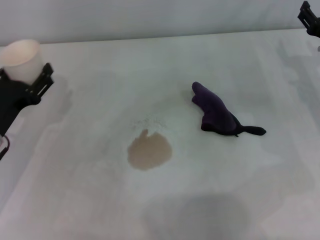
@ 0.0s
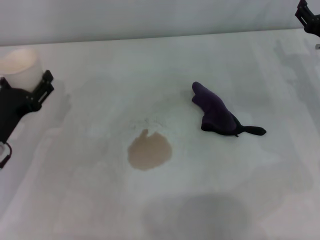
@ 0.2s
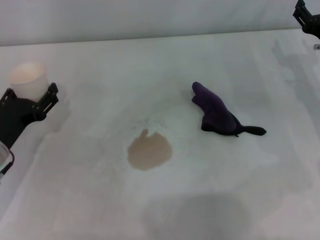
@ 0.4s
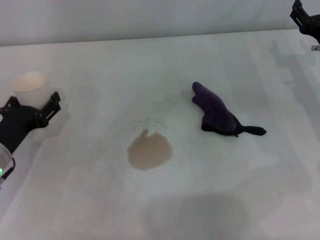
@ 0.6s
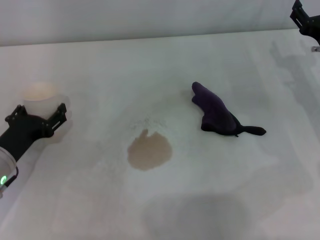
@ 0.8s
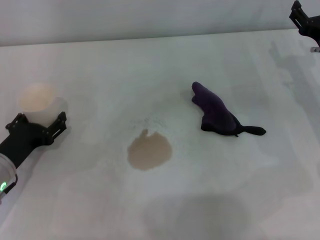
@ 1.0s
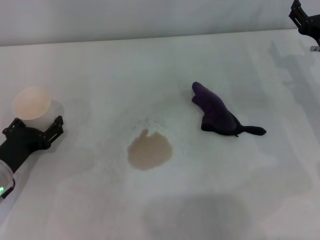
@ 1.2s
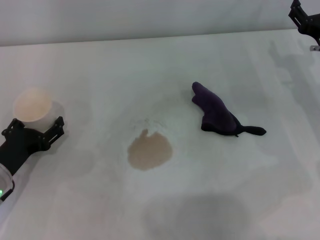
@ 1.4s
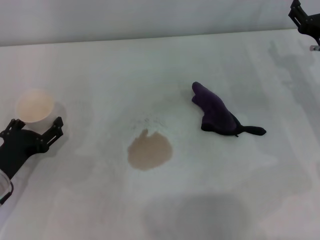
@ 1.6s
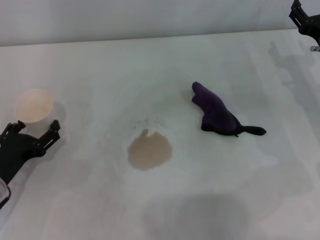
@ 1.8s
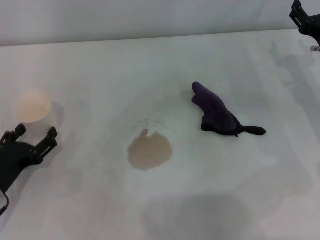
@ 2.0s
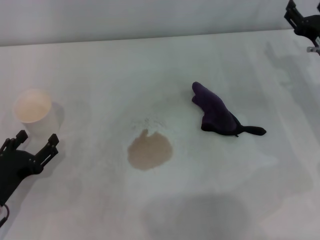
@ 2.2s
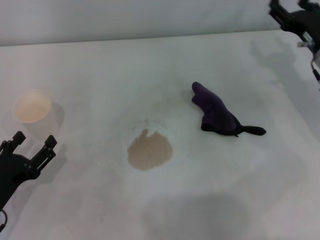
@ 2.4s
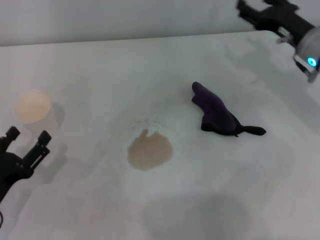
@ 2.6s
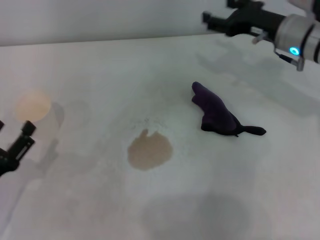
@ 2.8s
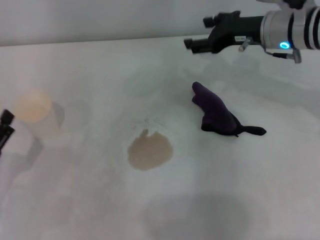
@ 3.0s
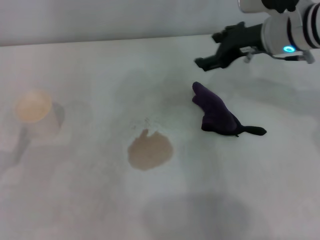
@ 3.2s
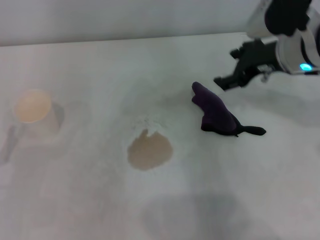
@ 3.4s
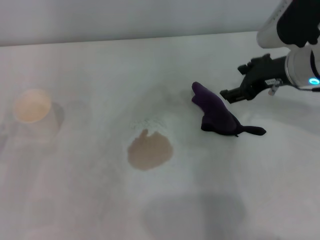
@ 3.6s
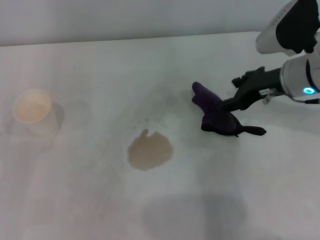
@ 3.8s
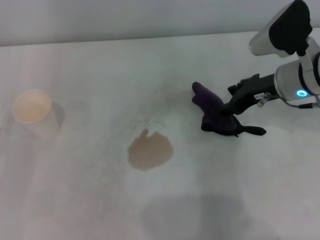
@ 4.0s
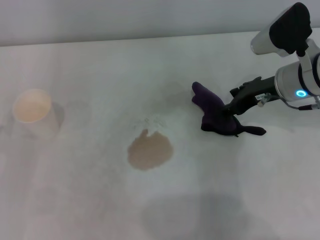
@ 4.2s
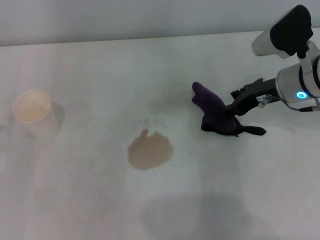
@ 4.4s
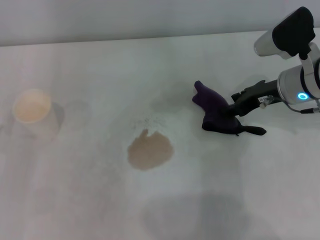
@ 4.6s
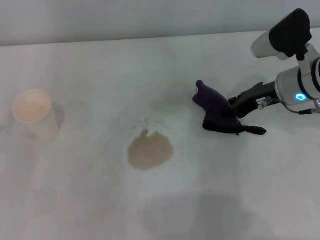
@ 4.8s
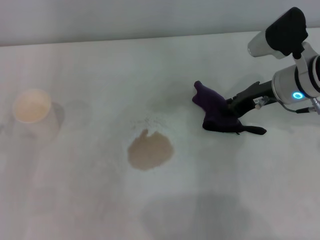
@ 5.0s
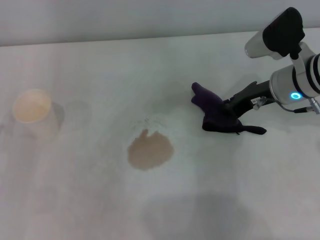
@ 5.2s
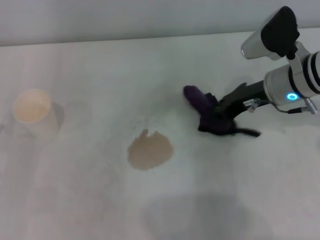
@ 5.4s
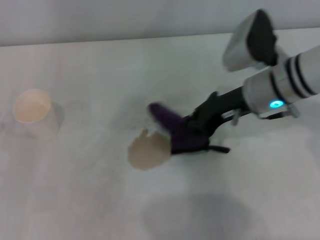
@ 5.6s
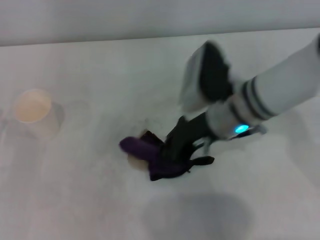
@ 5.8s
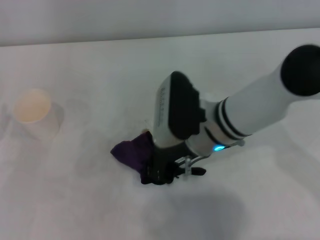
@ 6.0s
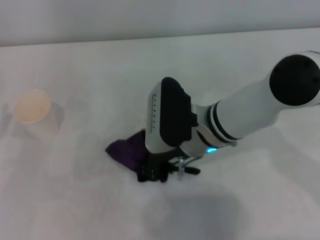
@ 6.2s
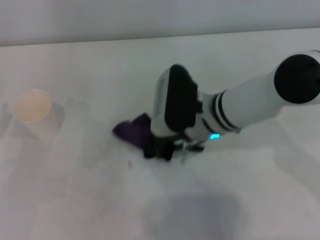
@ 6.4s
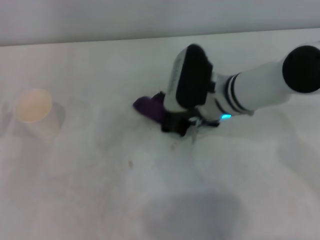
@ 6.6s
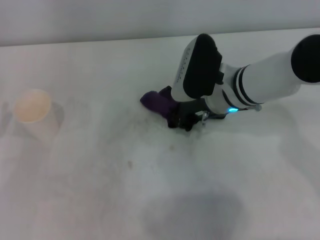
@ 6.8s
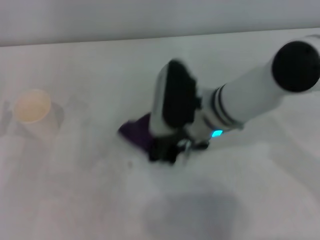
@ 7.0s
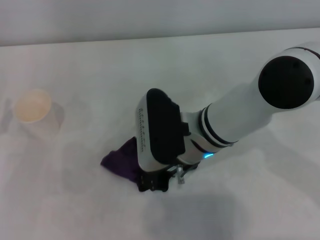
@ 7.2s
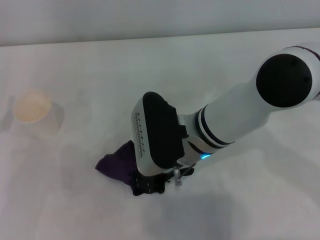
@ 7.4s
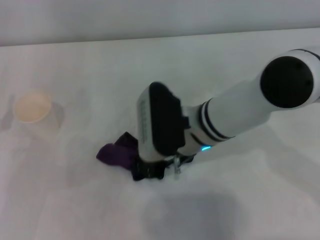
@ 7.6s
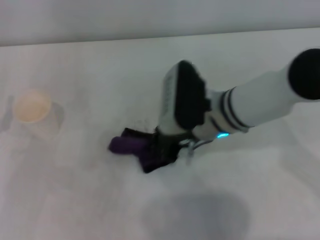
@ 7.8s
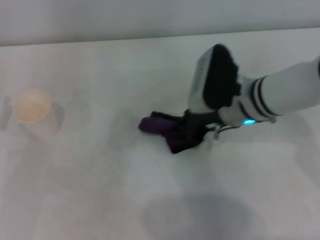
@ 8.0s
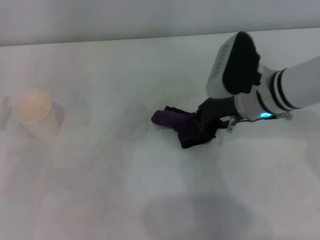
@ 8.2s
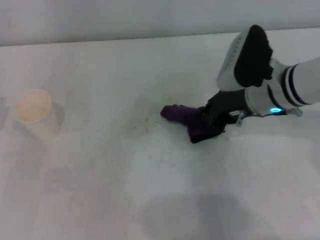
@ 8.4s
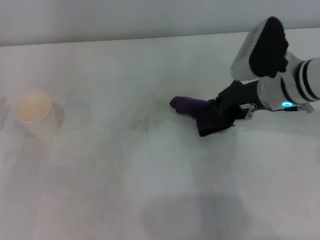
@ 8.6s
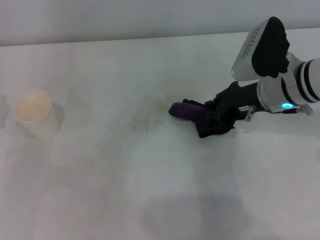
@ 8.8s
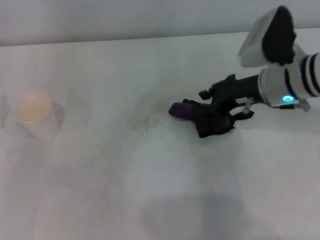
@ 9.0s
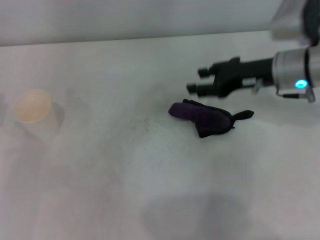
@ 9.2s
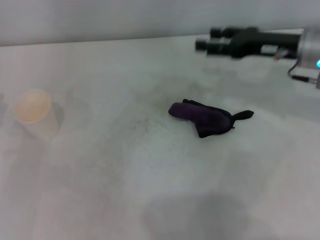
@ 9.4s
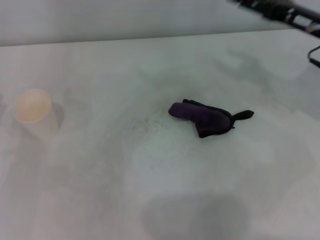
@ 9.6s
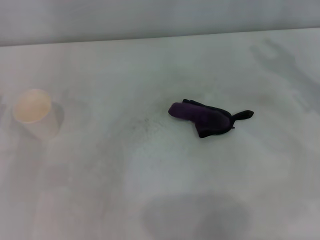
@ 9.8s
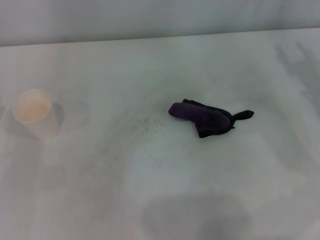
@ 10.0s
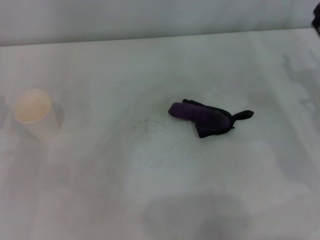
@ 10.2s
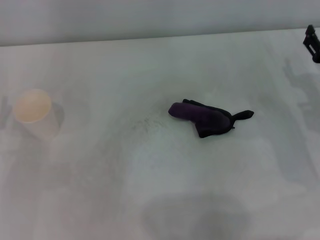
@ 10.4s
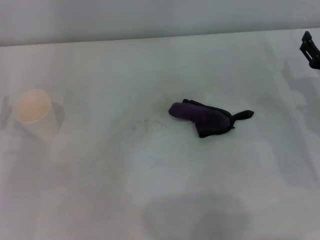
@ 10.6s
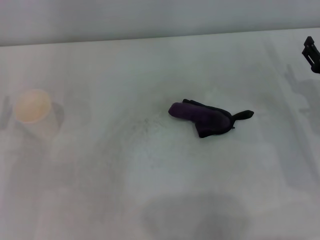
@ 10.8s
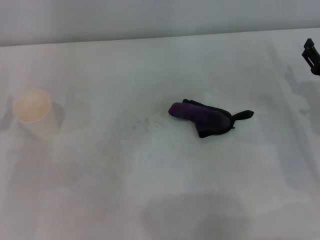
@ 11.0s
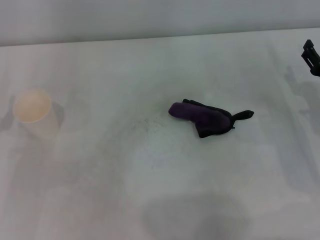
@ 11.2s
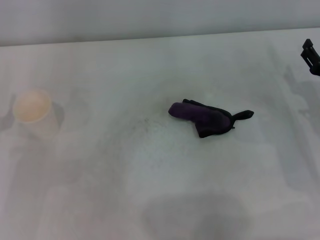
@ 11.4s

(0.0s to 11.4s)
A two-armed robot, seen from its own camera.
Step, 1.8s - 5.2s: Grasp the rag with the right gripper.
Step, 5.4s - 8.0s: Wipe the stains off the table with the right gripper.
Step, 8.2s - 8.8s: Place the rag on the table with the right gripper.
0.0s - 1.4s: The left gripper moves about 5 cm.
1.4s - 2.8s: The right gripper travels to the left and upward by some 10 cm; the left gripper travels backward by some 10 cm.
2.8s - 4.2s: The left gripper moves some 5 cm.
4.2s - 5.6s: The right gripper is displaced to the left by approximately 5 cm, and closes.
5.6s - 7.2s: The right gripper moves left and right over roughly 10 cm, changing direction 2 times.
7.2s - 8.6s: The right gripper heads to the right, covering roughly 15 cm.
8.6s - 10.0s: The right gripper goes approximately 15 cm to the right, and opens its fingers.
10.0s - 11.4s: The right gripper moves downward, roughly 5 cm.

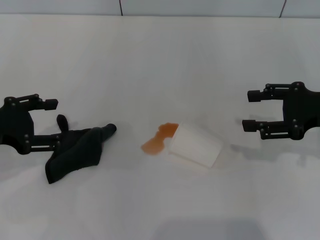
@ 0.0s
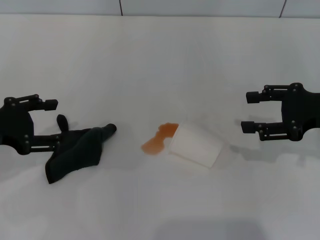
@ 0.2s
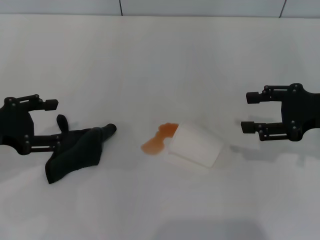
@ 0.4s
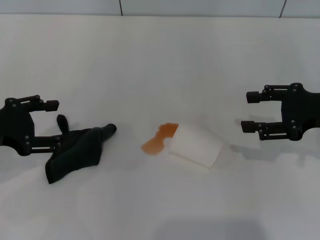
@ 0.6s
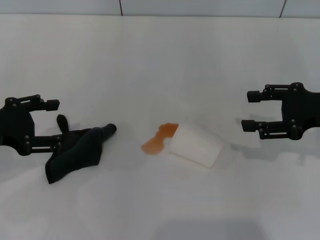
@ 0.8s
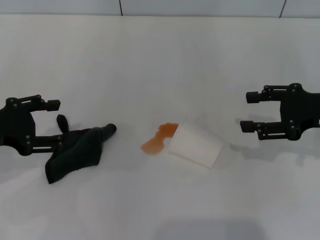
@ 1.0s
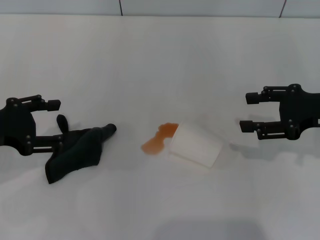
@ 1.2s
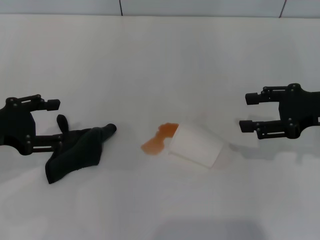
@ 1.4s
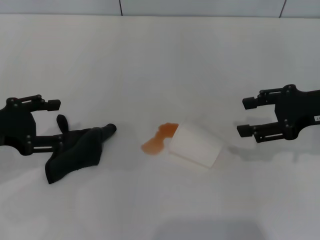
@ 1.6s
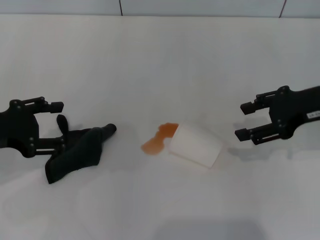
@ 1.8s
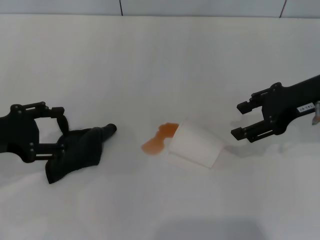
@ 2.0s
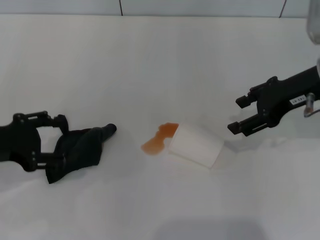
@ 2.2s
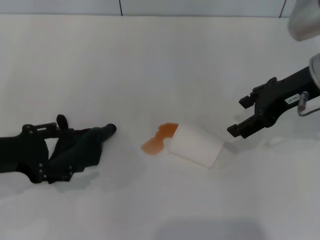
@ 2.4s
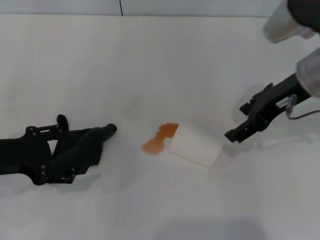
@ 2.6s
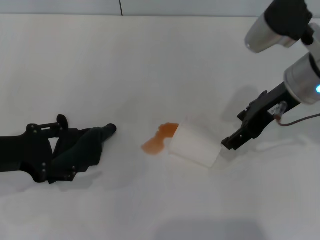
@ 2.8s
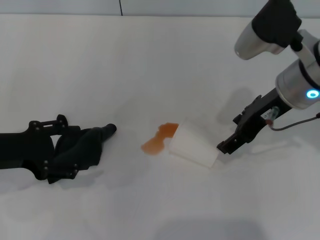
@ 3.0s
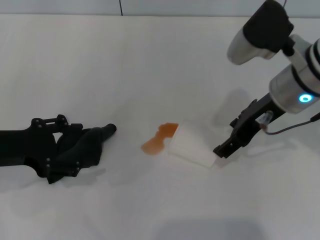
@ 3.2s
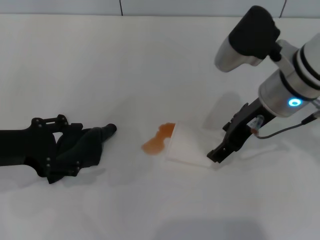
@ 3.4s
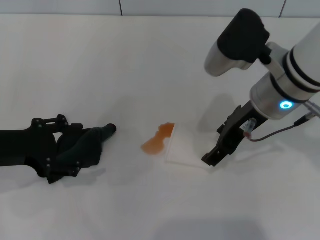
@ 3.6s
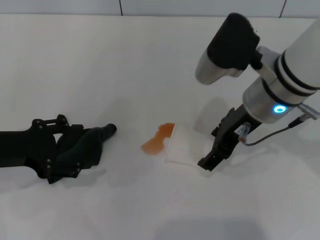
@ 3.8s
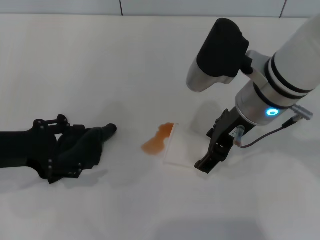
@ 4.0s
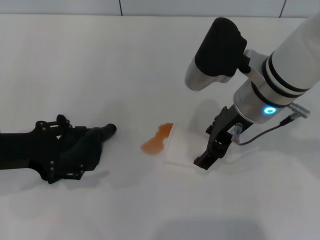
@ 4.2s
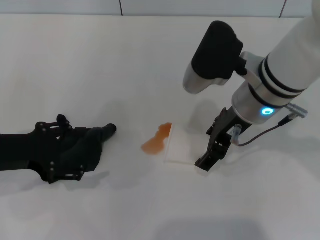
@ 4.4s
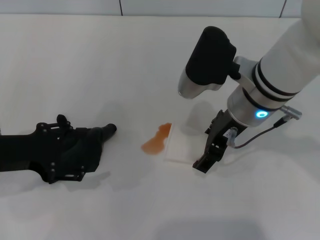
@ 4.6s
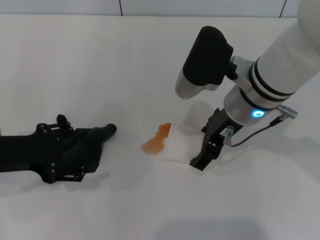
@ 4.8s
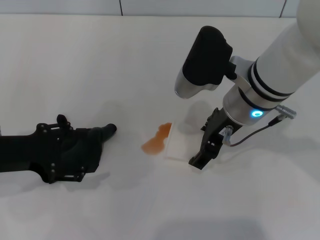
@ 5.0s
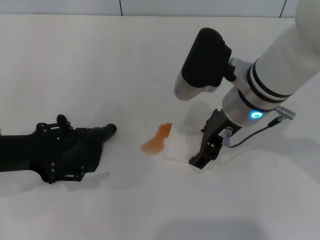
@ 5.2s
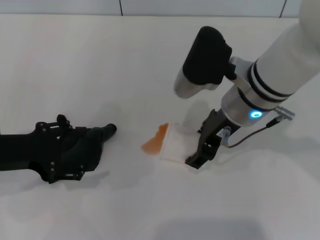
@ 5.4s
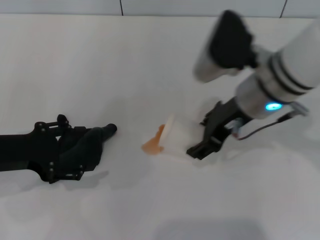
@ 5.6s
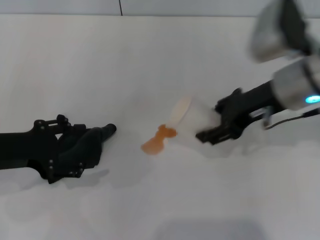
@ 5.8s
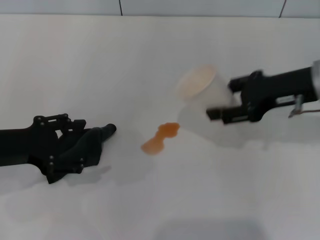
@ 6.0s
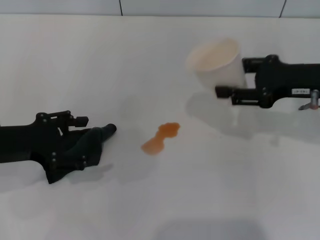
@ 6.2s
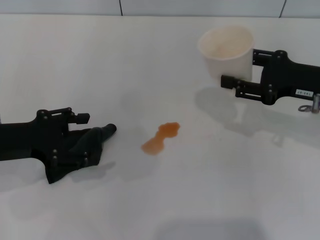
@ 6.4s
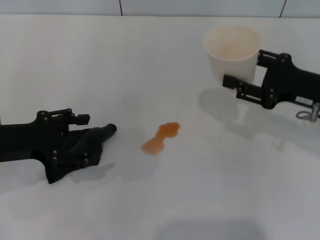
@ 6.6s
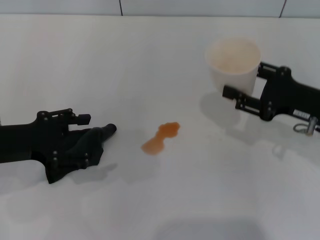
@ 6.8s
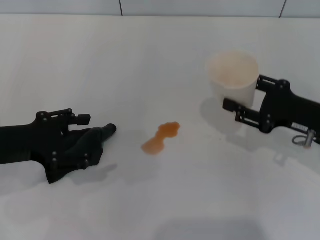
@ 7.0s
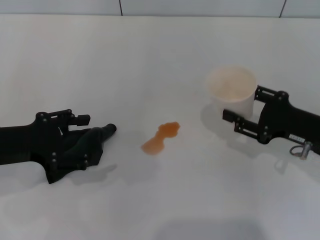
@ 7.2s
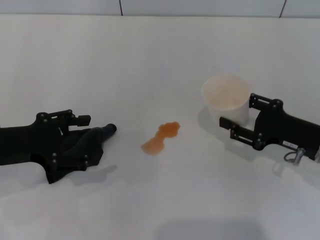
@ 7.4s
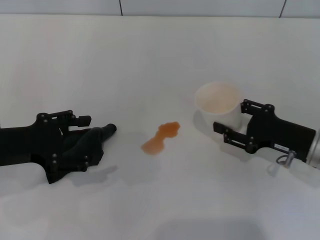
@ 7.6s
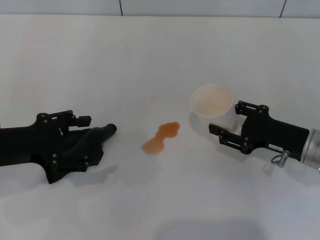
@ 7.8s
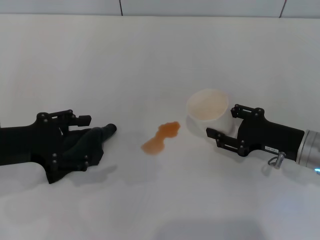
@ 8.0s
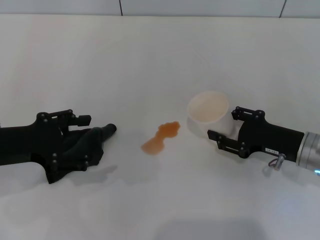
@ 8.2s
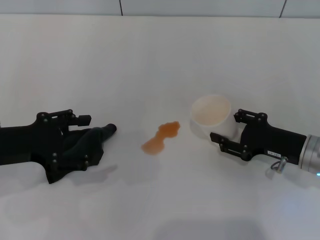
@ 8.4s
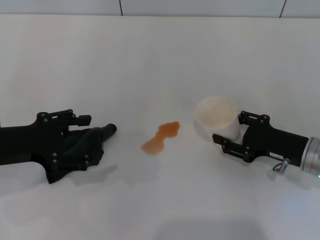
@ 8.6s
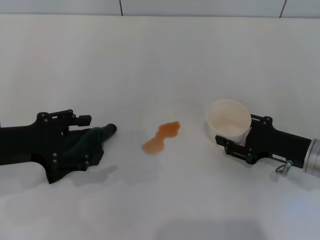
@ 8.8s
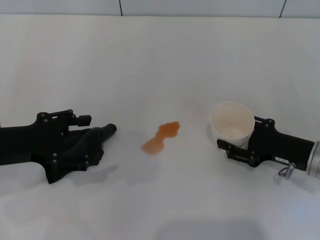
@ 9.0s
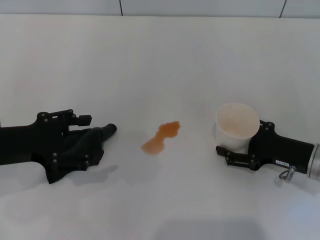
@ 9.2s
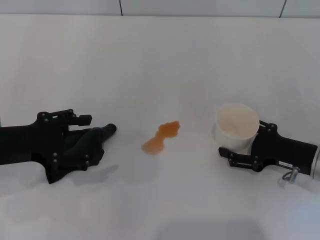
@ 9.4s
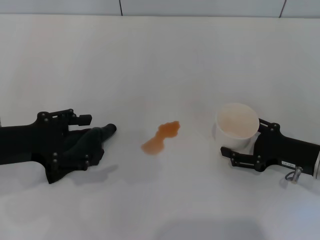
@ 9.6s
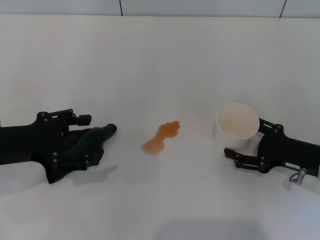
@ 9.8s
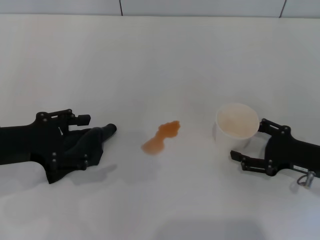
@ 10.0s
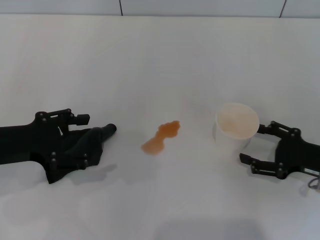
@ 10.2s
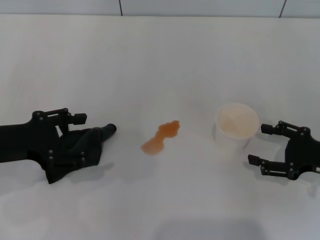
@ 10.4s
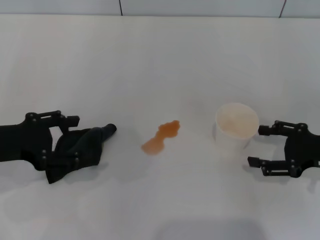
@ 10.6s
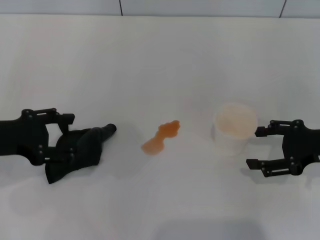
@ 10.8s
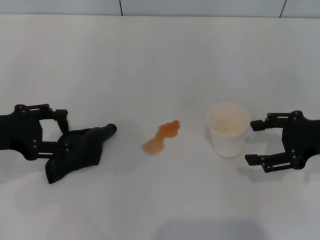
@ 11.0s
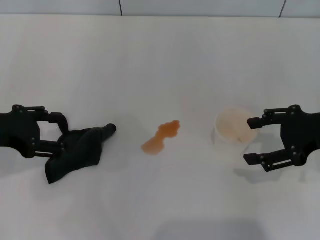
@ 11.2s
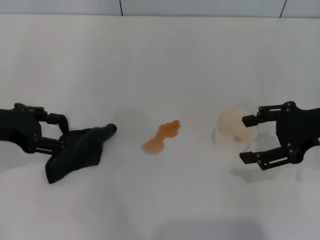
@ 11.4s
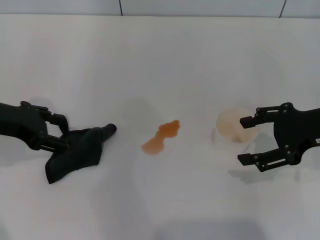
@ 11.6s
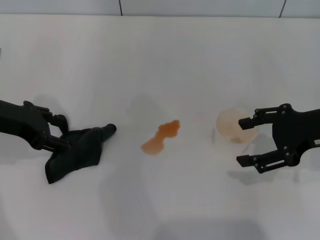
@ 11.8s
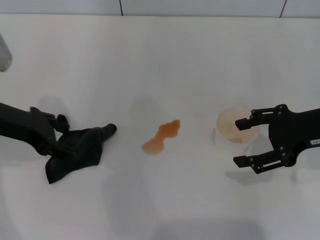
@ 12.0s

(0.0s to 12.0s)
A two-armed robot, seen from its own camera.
Step, 0.0s - 5.0s: Grasp the paper cup with the right gripper.
Step, 5.2s - 10.2s: Stand the paper cup upright with the right gripper.
0.0s - 1.6s: The grippers move only a little.
1.6s - 3.0s: The right gripper moves to the left, approximately 10 cm, and opens up.
3.0s - 4.4s: The right gripper moves to the left, approximately 5 cm.
4.4s - 6.0s: The right gripper is displaced to the right by about 10 cm, and closes up.
6.0s - 7.6s: The right gripper is displaced downward by approximately 15 cm.
7.6s - 9.0s: There are only small adjustments of the grippers.
9.0s - 10.4s: The right gripper goes approximately 5 cm to the right, and opens up.
10.4s - 12.0s: The right gripper travels upward by some 10 cm. The left gripper is displaced forward by roughly 5 cm.
